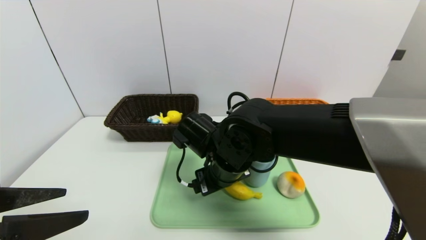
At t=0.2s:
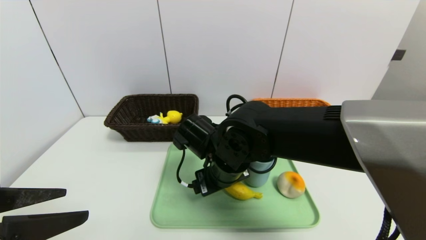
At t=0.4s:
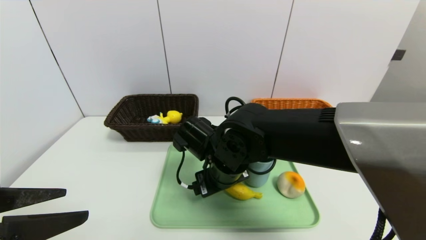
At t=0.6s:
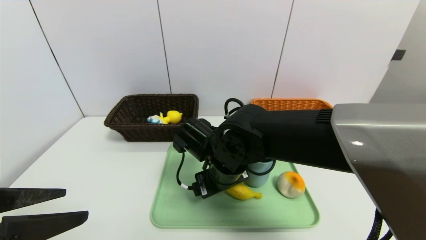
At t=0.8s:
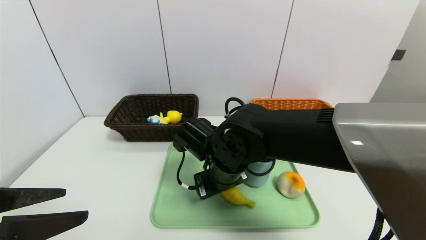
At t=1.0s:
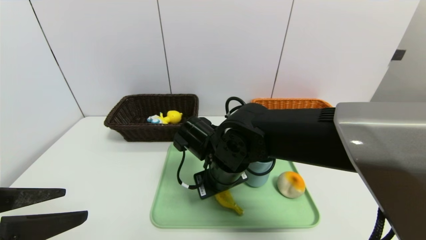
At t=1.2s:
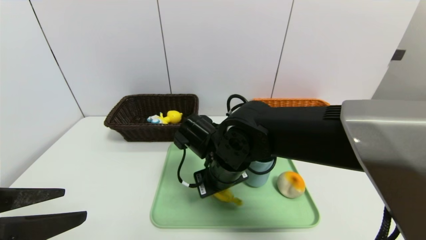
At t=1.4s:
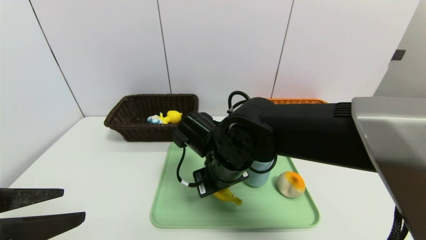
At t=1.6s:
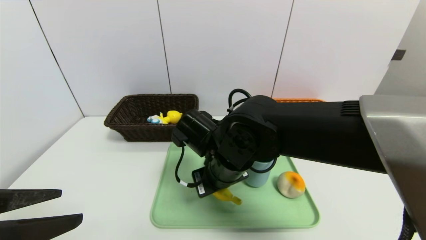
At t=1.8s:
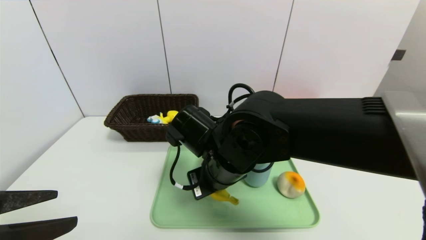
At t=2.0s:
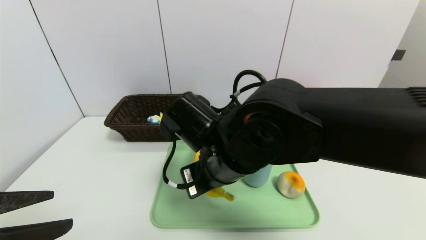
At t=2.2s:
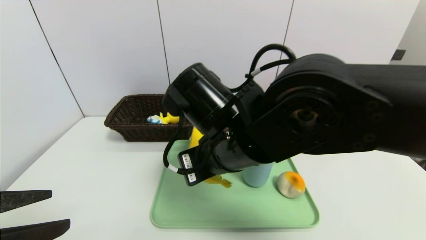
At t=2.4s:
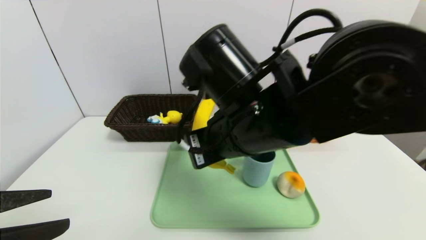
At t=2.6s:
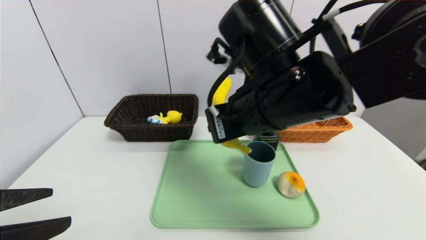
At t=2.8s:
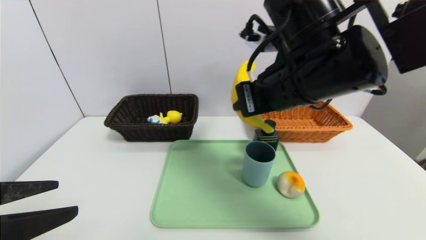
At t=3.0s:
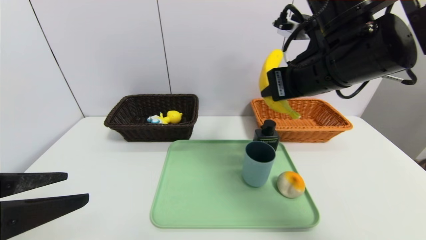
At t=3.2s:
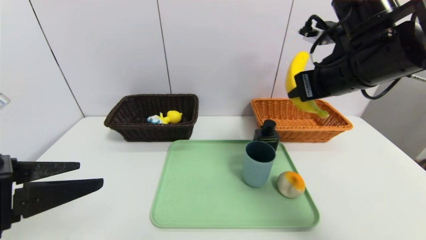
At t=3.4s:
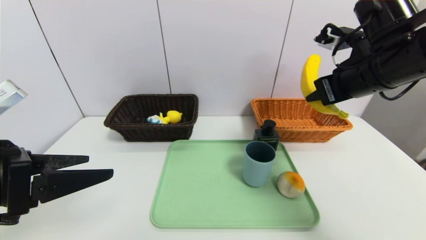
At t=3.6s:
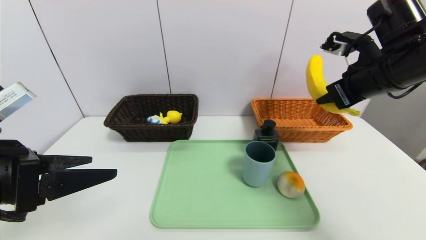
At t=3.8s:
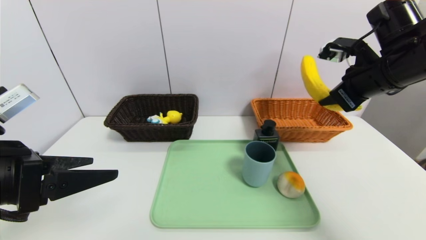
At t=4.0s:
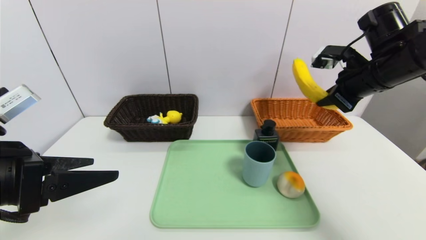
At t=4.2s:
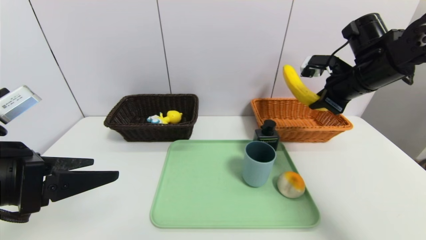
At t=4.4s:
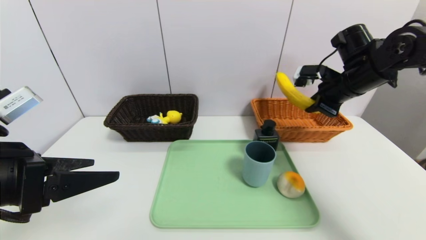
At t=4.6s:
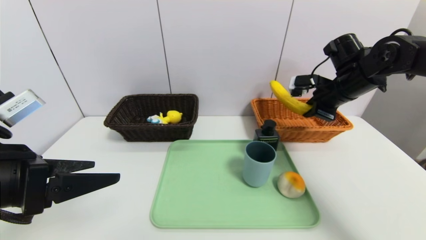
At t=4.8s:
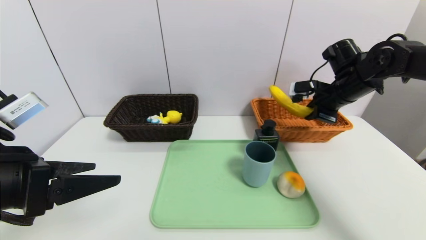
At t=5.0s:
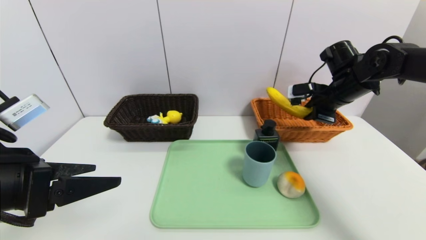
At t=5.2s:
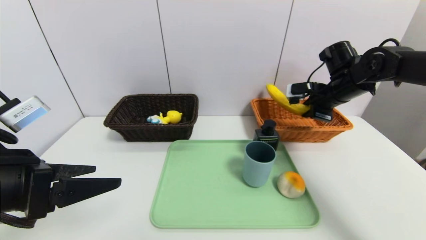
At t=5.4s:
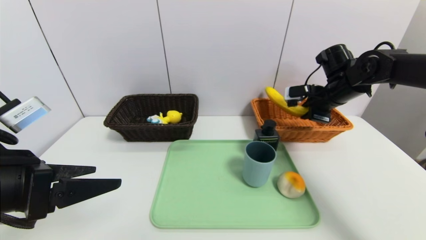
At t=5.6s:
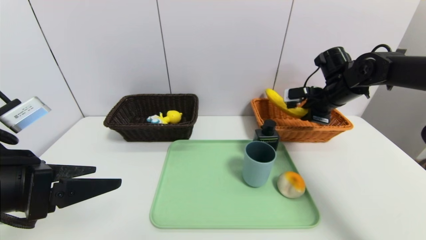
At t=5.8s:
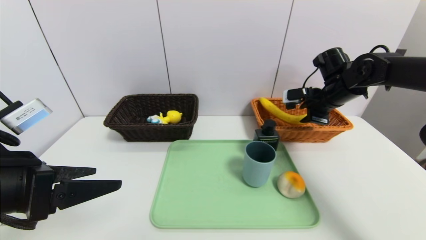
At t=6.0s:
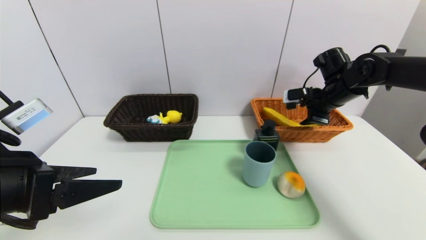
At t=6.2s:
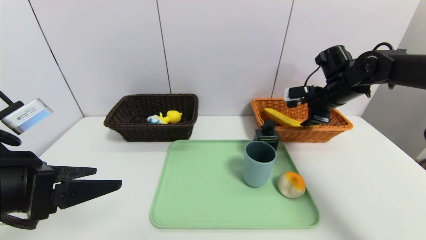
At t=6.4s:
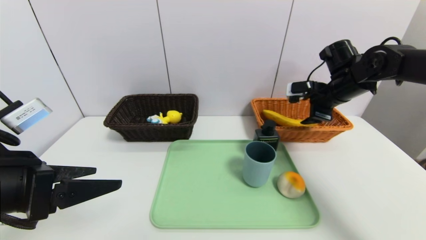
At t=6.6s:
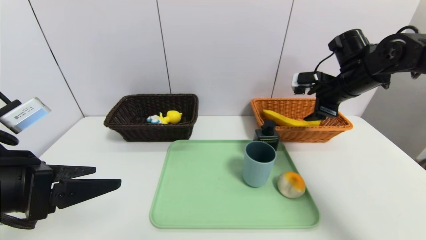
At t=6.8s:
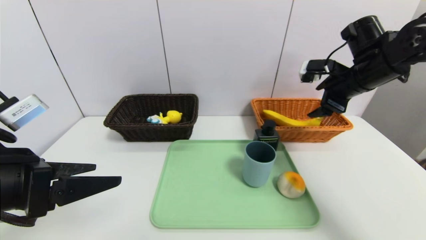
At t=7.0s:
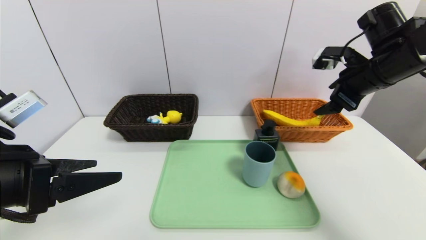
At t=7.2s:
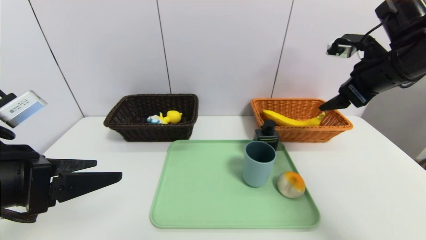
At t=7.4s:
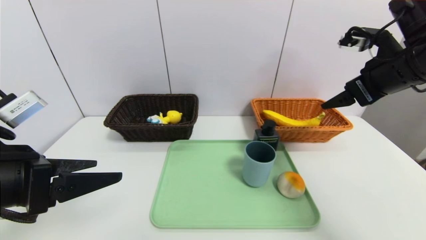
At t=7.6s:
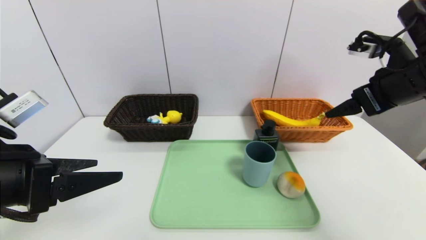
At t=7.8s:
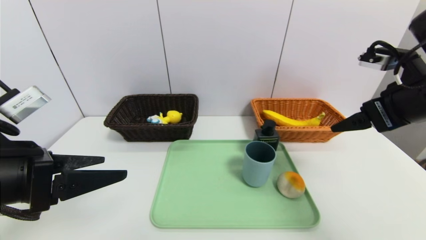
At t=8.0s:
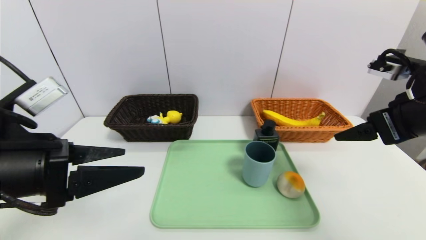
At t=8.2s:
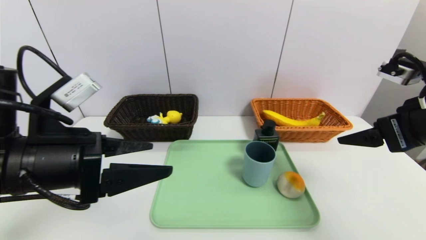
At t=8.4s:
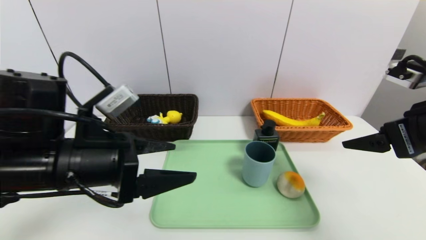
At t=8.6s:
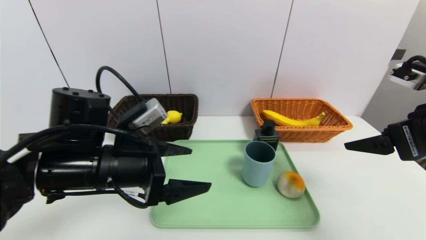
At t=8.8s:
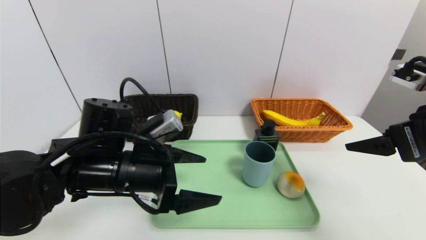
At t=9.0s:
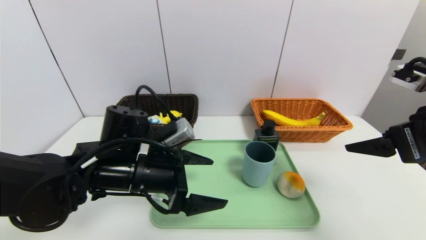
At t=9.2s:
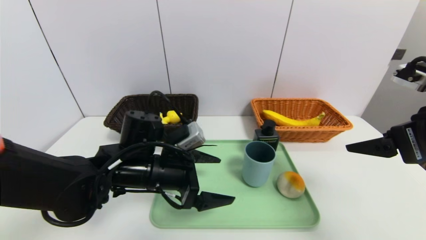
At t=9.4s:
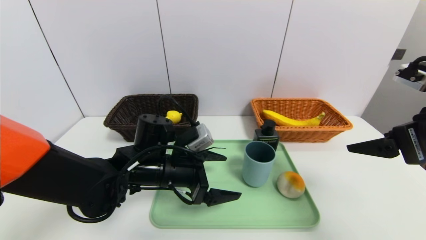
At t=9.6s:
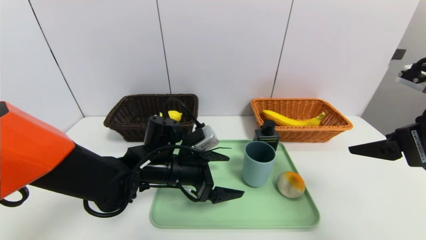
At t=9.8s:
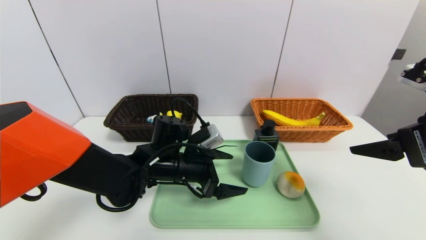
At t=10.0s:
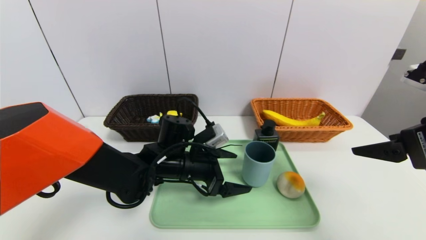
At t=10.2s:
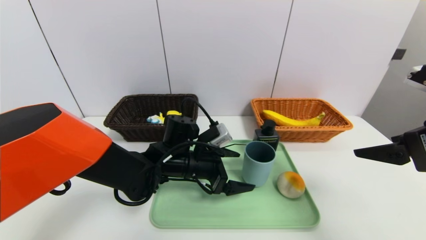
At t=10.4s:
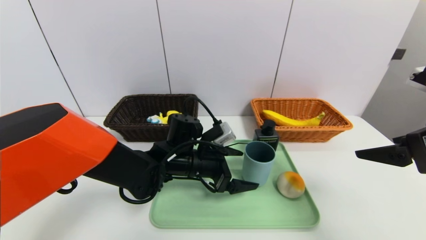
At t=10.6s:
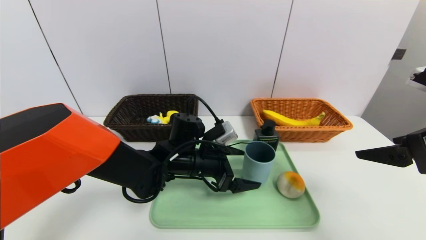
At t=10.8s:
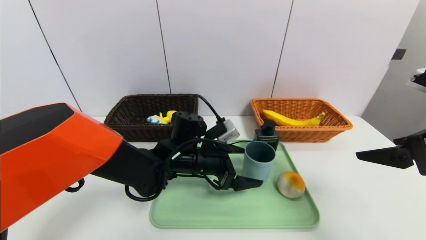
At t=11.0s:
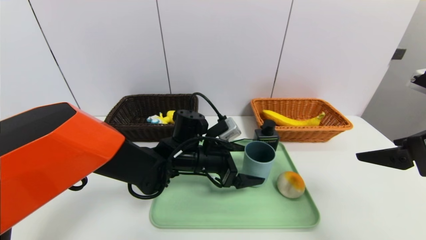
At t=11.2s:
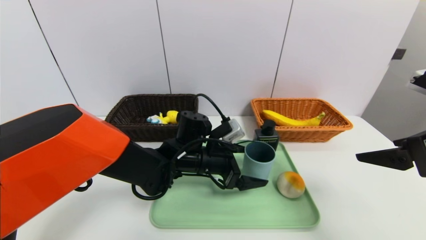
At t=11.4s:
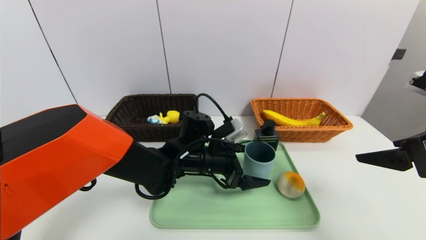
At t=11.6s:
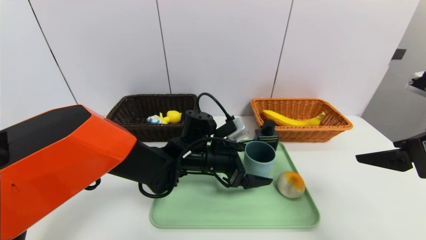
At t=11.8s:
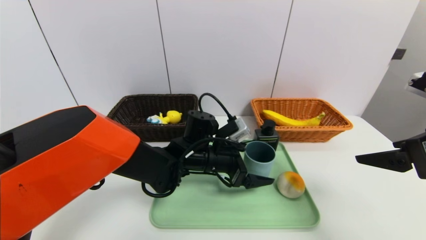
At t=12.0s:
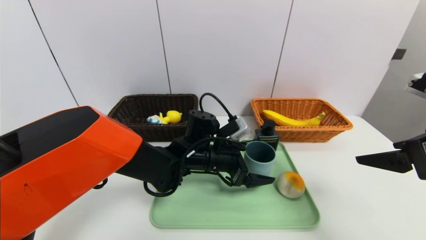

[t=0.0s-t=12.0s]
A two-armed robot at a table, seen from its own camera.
Task of the whole recording: place the food in the right basket with the right gripper, and place the non food items in the left basket with the left gripper.
Step, t=0.0s to t=6.6s: Grasp the banana and put it in the right basket.
t=0.0s to t=1.6s: The right gripper closes up.
t=1.6s to t=3.0s: The right gripper moves upward and to the right, some 20 cm.
t=3.0s to t=4.4s: The right gripper heads to the right, forward and downward, covering about 20 cm.
t=4.4s to t=6.0s: The right gripper changes place by approximately 5 cm, and opens its fingers.
t=6.0s to t=7.6s: The right gripper moves backward and upward, approximately 20 cm.
t=7.6s to t=9.0s: The left gripper is displaced to the right, forward and downward by some 20 cm, while the right gripper heads backward, covering roughly 10 cm.
t=9.0s to t=10.4s: The left gripper travels to the right and forward by some 10 cm.
t=10.4s to t=12.0s: The grippers make only small movements.

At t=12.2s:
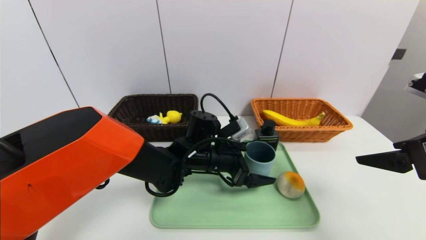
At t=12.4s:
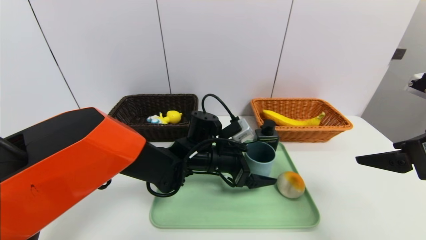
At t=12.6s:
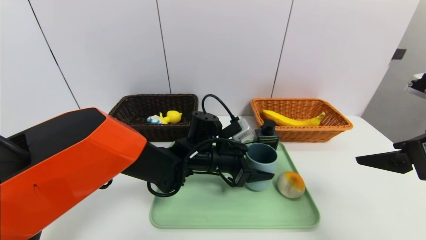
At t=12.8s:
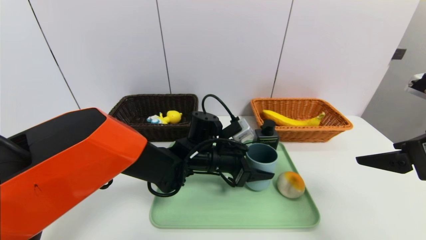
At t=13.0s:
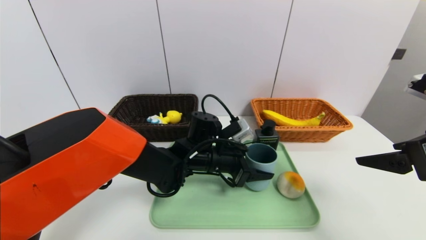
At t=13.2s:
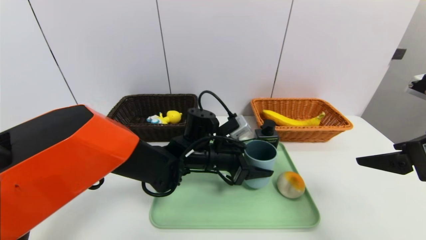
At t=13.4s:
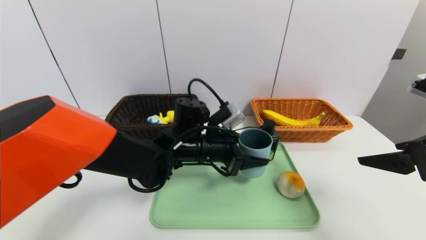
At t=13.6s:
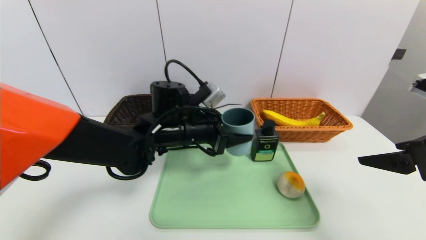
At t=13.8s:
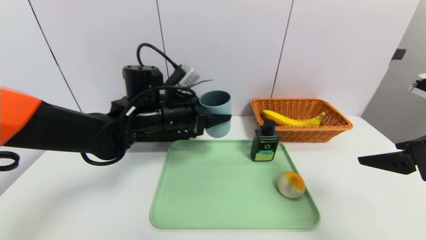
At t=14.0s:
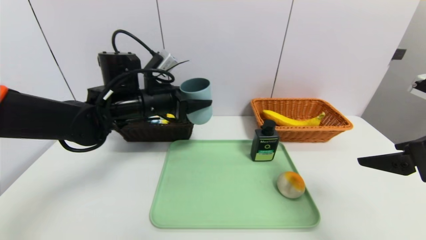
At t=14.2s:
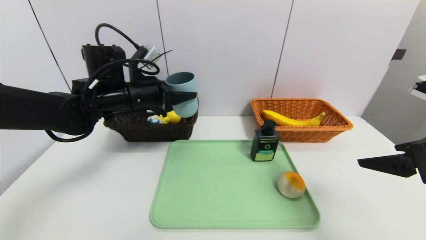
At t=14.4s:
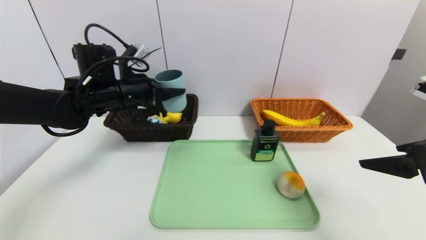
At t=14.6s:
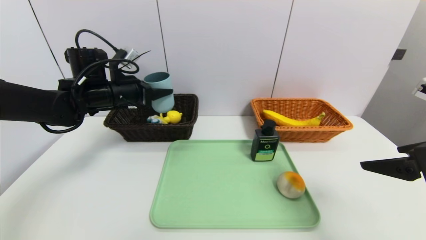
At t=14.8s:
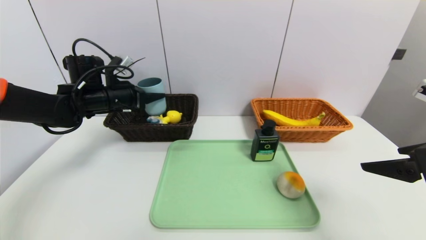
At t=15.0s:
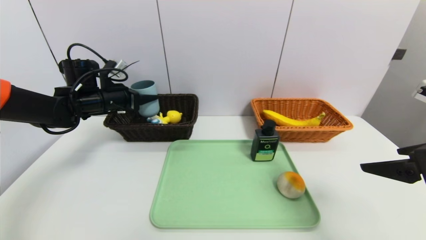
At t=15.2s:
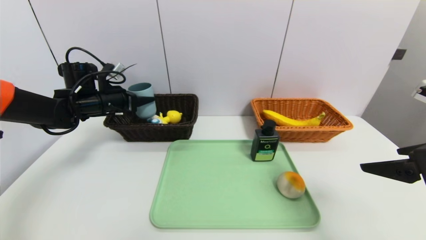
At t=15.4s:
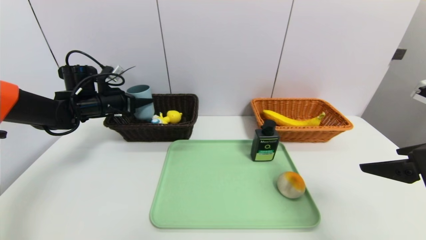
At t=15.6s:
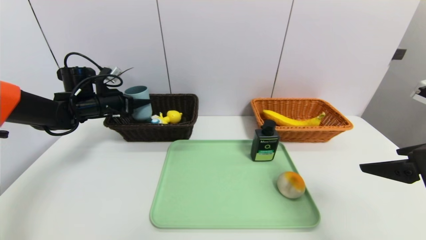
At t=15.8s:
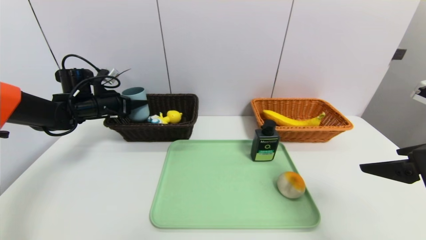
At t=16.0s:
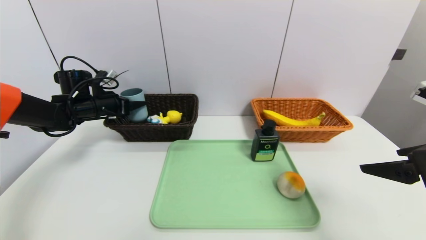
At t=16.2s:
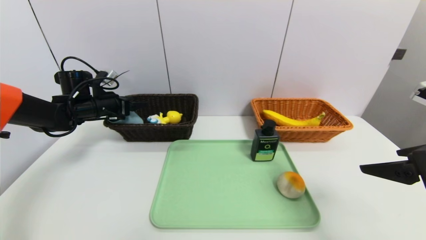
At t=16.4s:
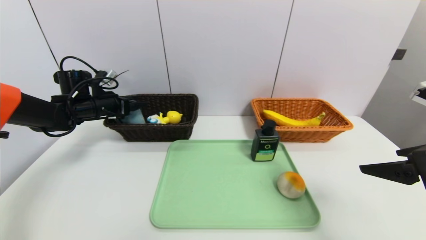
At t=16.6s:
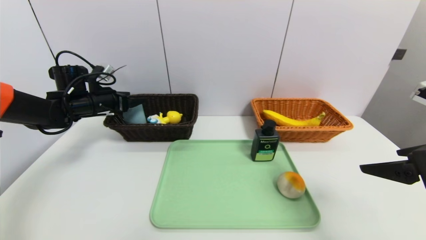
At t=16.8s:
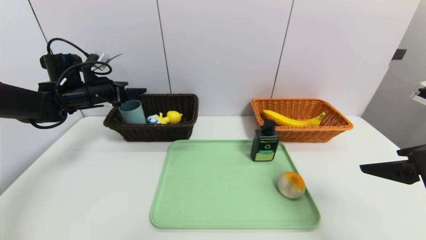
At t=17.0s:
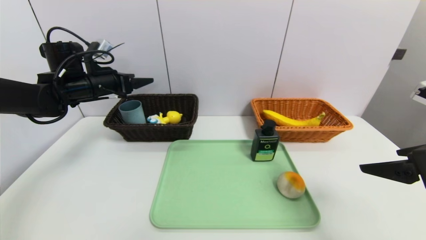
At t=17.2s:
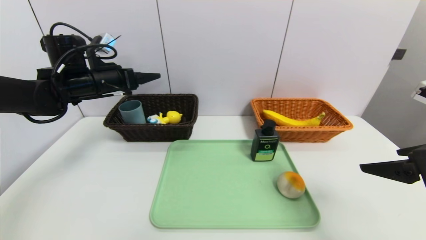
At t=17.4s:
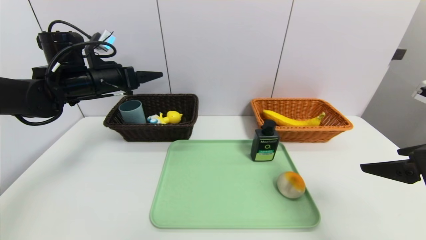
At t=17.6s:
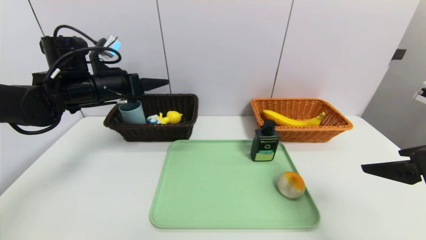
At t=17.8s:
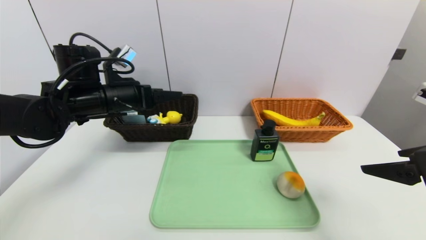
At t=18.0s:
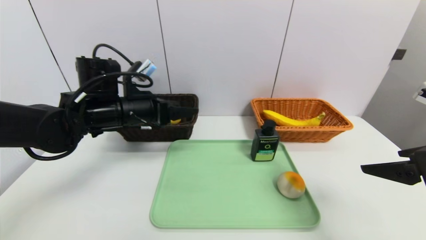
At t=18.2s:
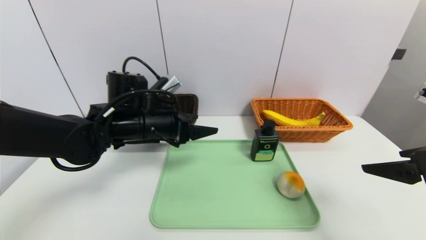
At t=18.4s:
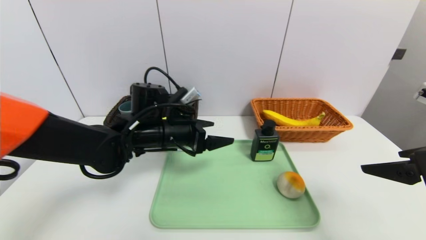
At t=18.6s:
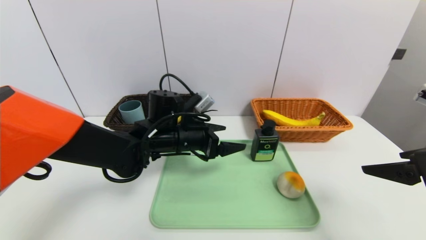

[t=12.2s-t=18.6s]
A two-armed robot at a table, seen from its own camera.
Task of the whole recording: place the food in the right basket with the right gripper, and place the non food items in the left basket with the left gripper.
Step, t=12.2s to t=16.6s: Grasp the blue cup and put it in the left basket.
t=12.2s to t=13.8s: The left gripper shifts some 15 cm to the left and upward, and closes up.
t=13.8s to t=15.4s: The left gripper moves to the left and forward, roughly 20 cm.
t=15.4s to t=17.0s: The left gripper heads upward, covering about 5 cm, and opens its fingers.
t=17.0s to t=18.6s: The left gripper moves to the right and downward, some 25 cm.
